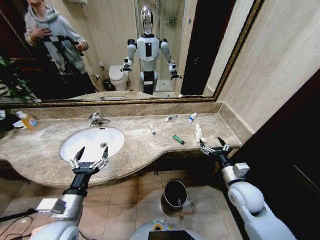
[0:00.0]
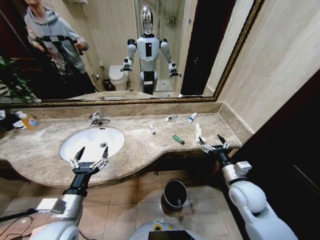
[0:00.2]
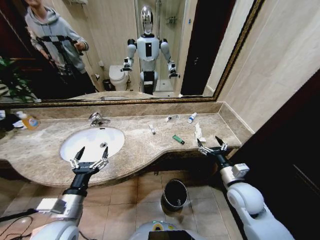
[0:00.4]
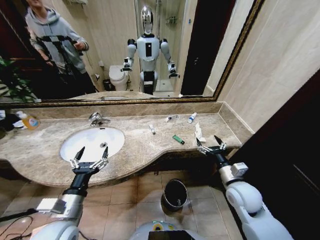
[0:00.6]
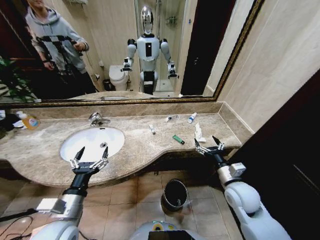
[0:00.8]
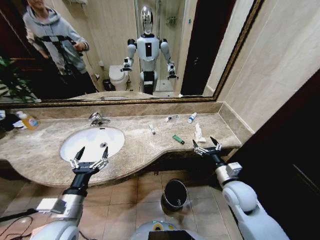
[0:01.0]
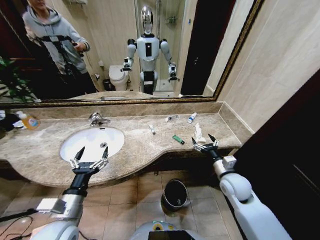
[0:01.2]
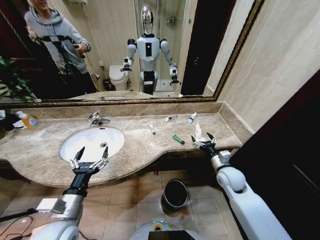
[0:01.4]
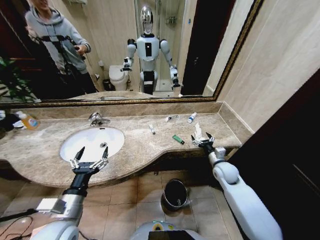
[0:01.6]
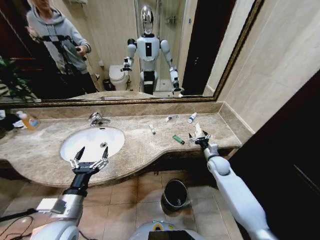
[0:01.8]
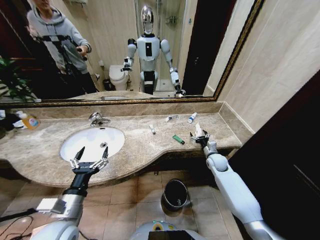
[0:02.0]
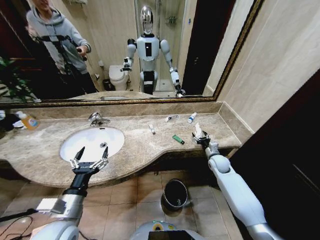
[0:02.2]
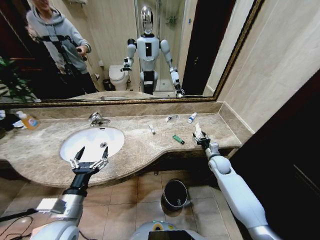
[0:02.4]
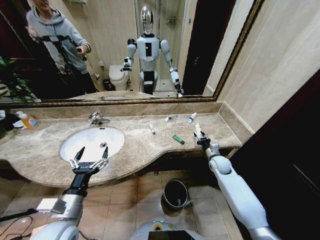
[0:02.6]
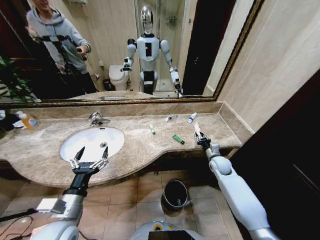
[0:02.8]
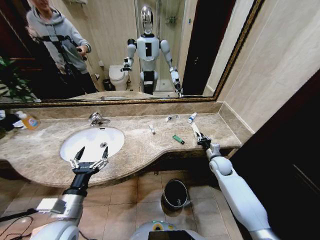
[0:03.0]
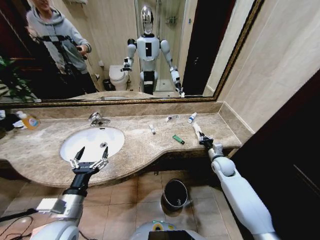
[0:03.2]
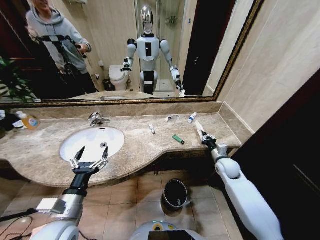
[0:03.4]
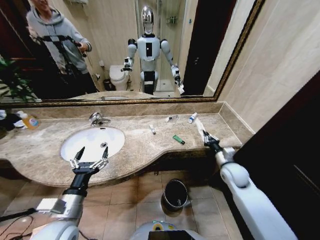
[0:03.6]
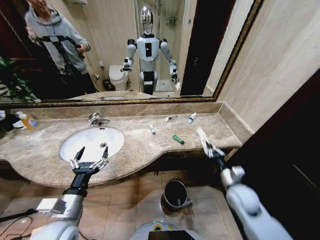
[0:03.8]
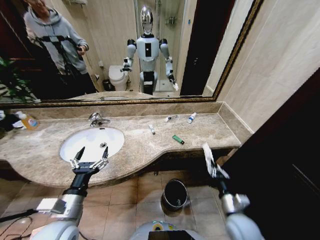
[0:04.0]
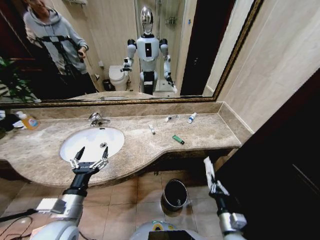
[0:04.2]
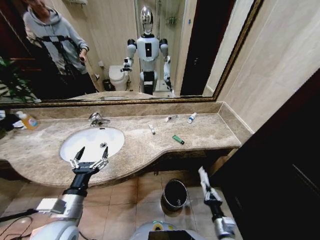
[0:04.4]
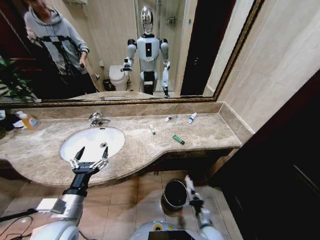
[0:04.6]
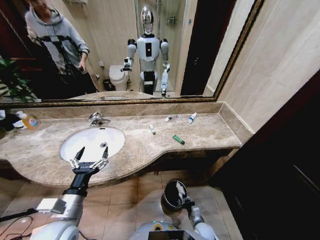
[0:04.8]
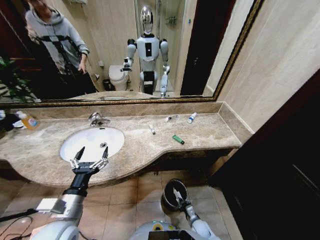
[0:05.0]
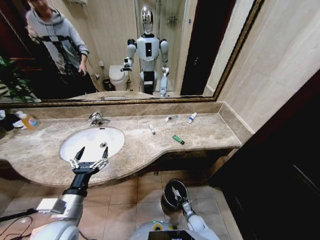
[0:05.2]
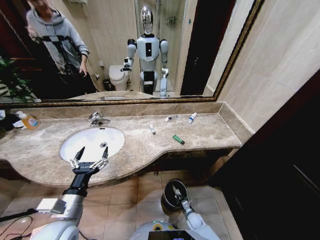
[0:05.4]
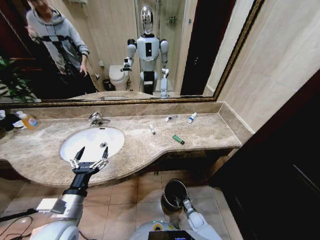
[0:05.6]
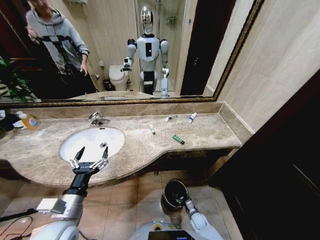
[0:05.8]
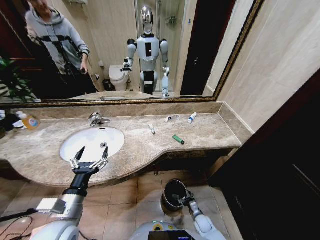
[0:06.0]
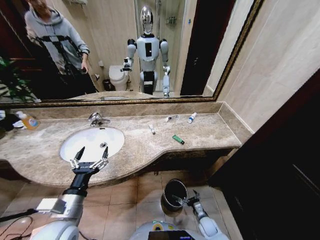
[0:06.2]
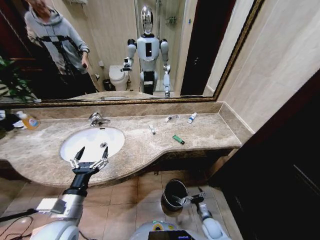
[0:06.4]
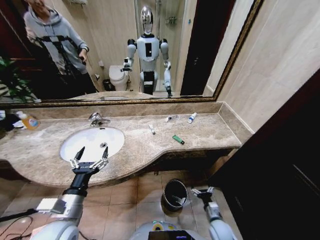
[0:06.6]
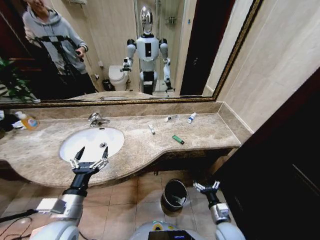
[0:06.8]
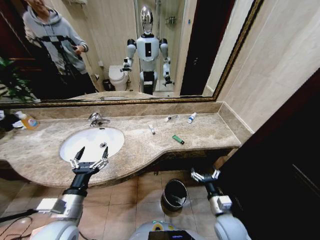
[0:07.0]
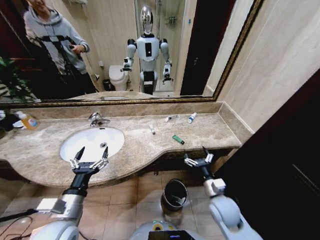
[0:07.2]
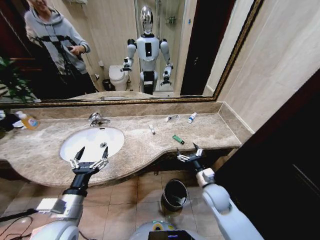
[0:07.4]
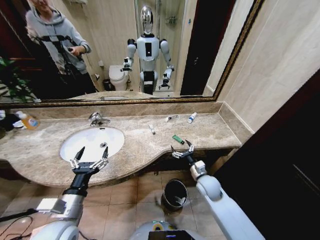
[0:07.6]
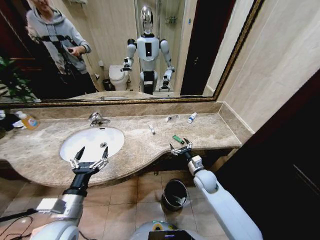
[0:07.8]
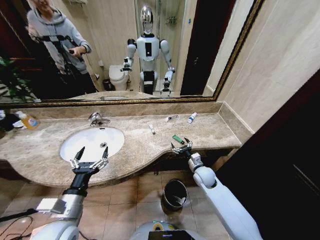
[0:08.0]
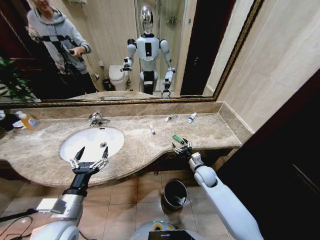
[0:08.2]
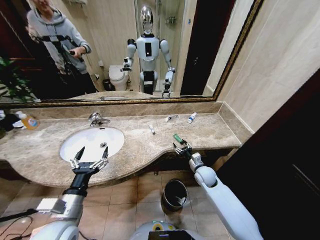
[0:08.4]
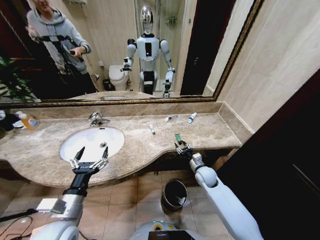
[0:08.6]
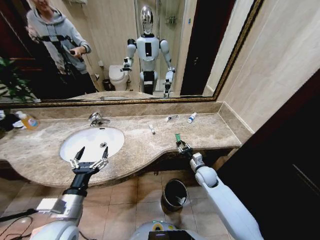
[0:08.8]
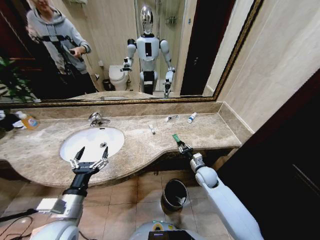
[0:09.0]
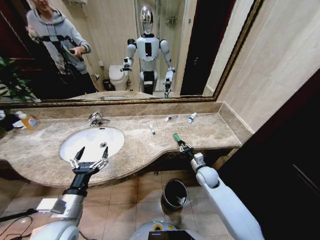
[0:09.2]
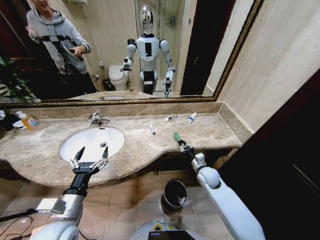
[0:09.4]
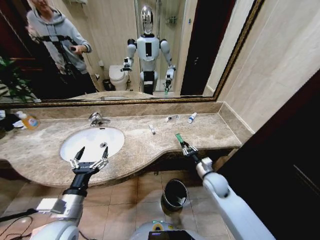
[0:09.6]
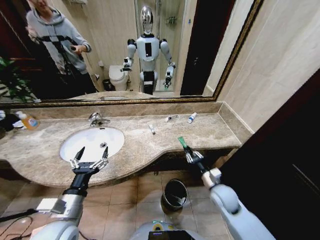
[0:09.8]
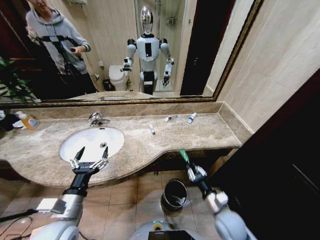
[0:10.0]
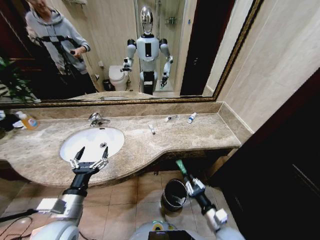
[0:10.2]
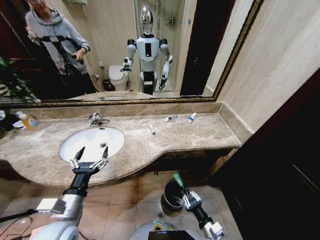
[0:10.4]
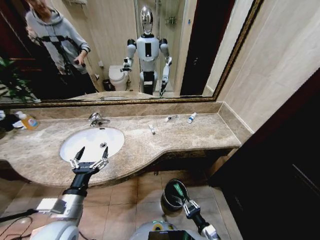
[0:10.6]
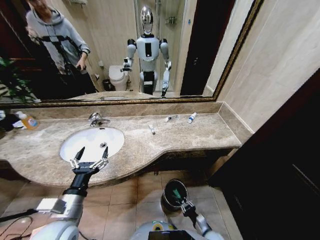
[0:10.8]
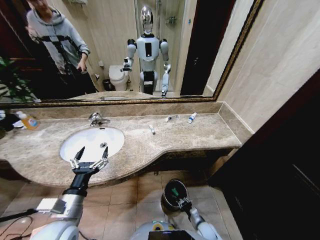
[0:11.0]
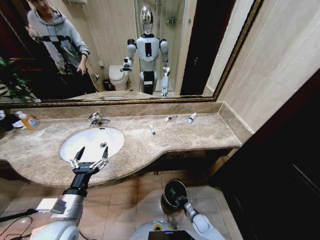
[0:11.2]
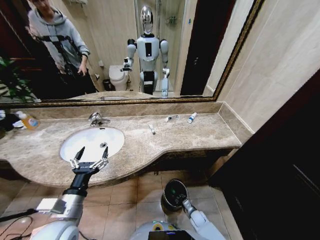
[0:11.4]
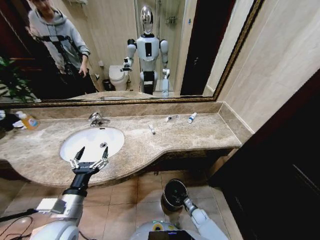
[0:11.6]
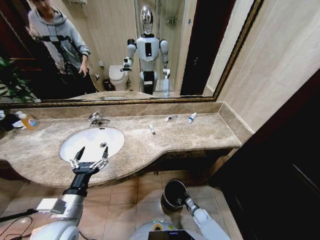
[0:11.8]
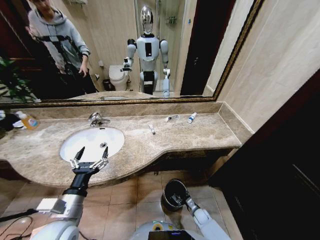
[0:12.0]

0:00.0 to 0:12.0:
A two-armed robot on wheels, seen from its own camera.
Task of the whole recording: Pick up the trash from the sink and place it in the trash bin.
0:01.6 to 0:03.0: The right gripper changes place by some 5 cm, and closes its fingers.
0:03.0 to 0:04.4: The right gripper shifts approximately 35 cm backward and downward.
0:04.4 to 0:06.0: The right gripper travels downward and forward by approximately 20 cm, and opens.
0:06.0 to 0:07.6: The right gripper heads upward, covering approximately 30 cm.
0:07.6 to 0:09.0: The right gripper goes some 5 cm forward, and closes its fingers.
0:09.0 to 0:10.4: The right gripper is displaced backward by some 25 cm.
0:10.4 to 0:12.0: The right gripper goes about 25 cm downward and forward, and opens up.

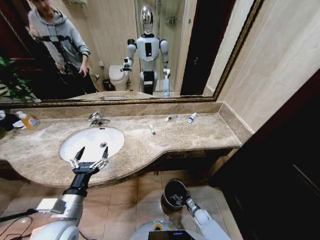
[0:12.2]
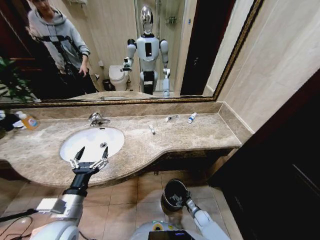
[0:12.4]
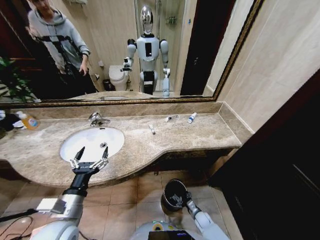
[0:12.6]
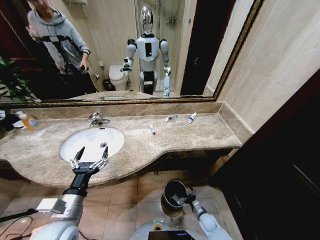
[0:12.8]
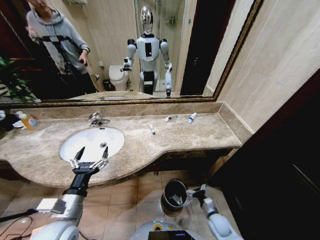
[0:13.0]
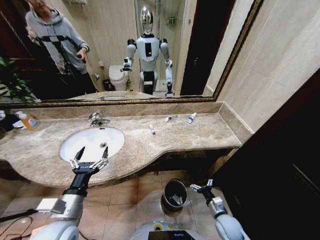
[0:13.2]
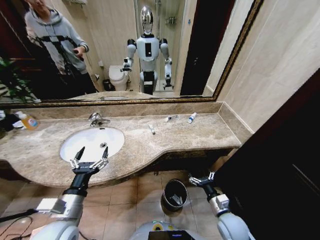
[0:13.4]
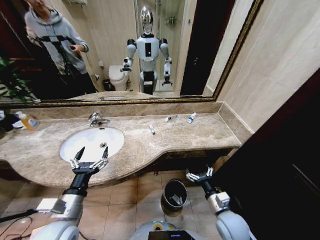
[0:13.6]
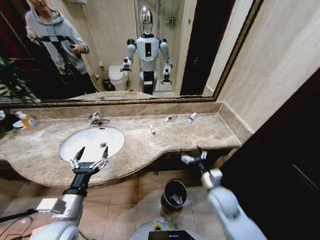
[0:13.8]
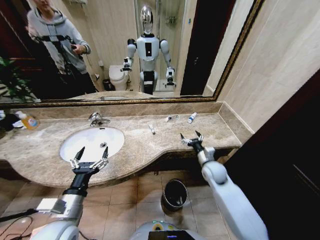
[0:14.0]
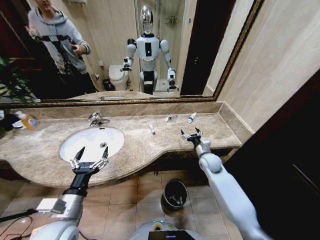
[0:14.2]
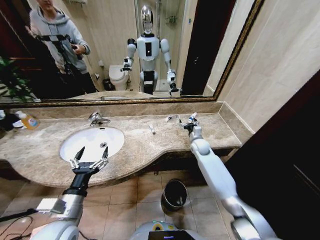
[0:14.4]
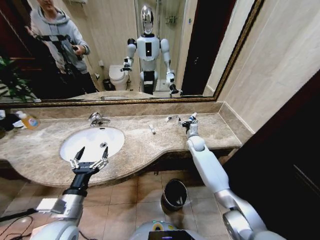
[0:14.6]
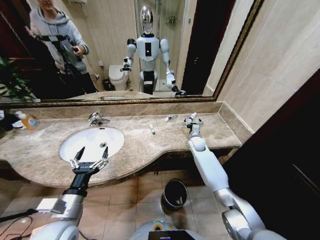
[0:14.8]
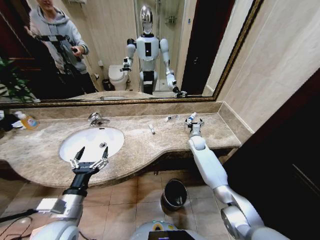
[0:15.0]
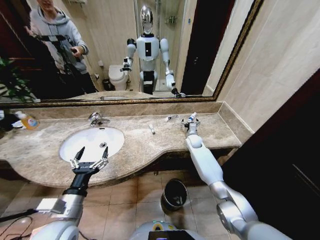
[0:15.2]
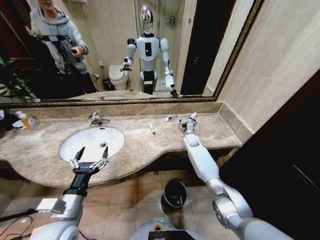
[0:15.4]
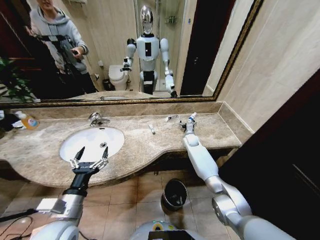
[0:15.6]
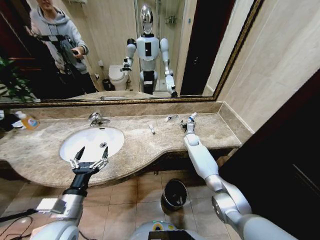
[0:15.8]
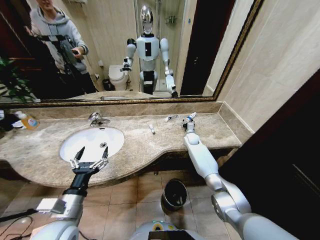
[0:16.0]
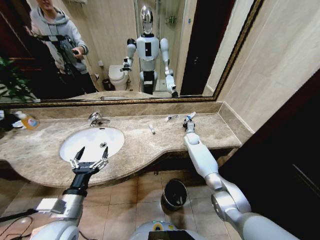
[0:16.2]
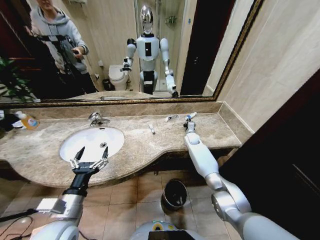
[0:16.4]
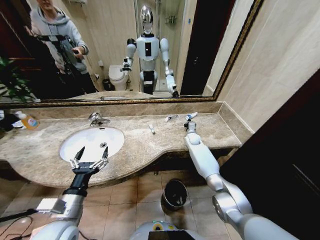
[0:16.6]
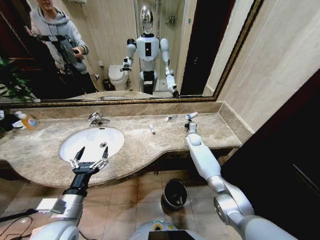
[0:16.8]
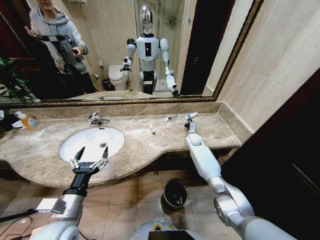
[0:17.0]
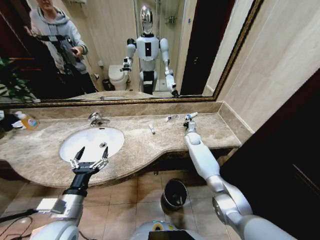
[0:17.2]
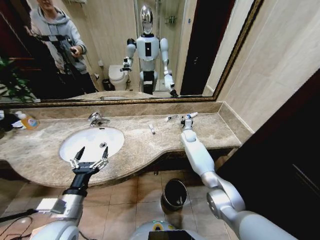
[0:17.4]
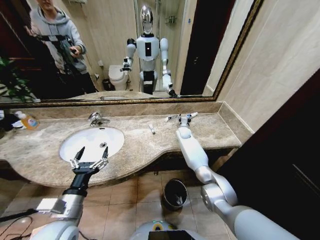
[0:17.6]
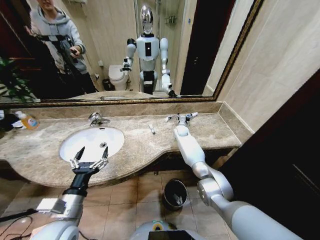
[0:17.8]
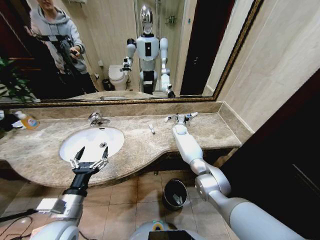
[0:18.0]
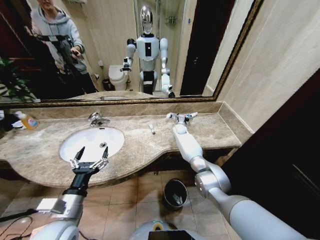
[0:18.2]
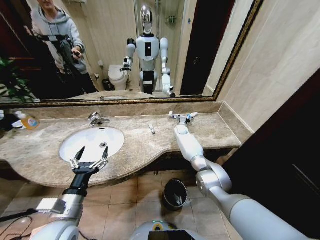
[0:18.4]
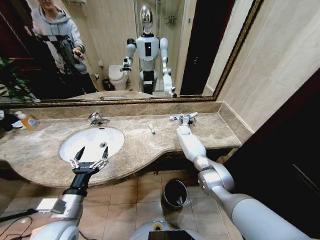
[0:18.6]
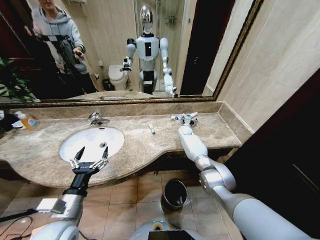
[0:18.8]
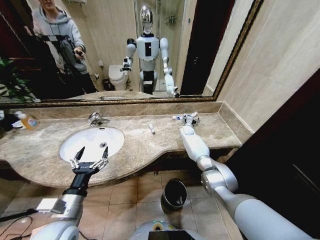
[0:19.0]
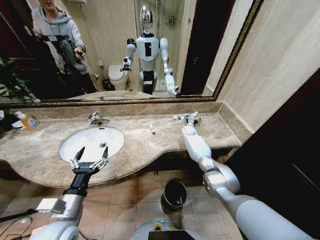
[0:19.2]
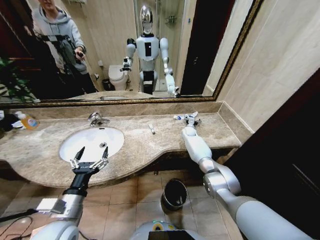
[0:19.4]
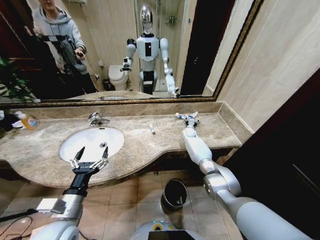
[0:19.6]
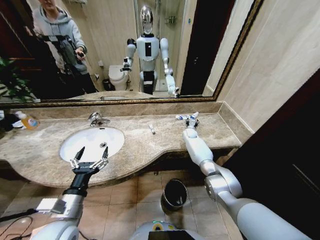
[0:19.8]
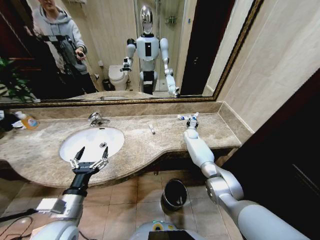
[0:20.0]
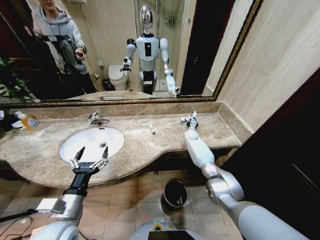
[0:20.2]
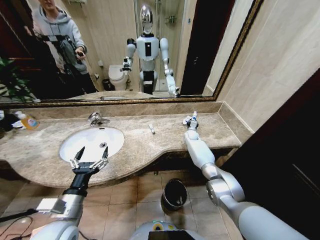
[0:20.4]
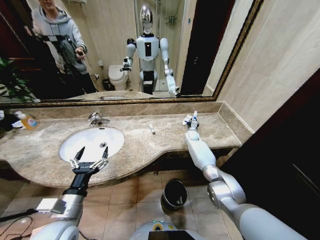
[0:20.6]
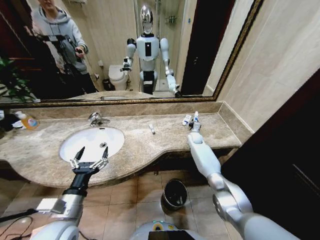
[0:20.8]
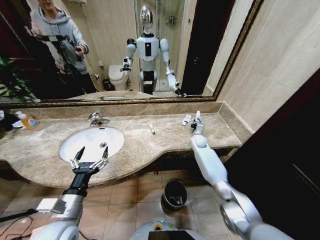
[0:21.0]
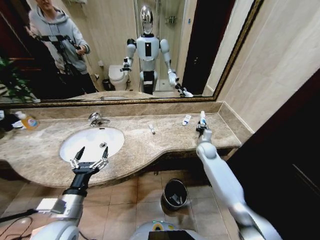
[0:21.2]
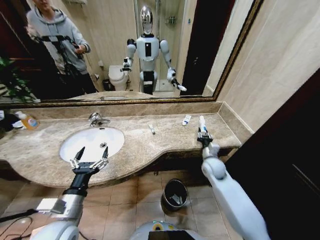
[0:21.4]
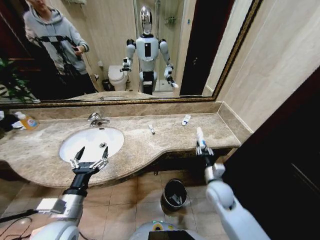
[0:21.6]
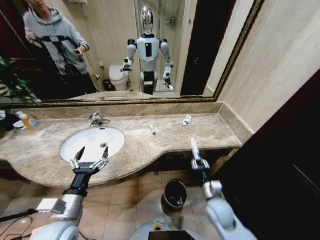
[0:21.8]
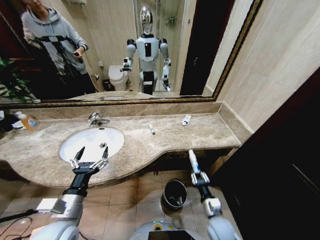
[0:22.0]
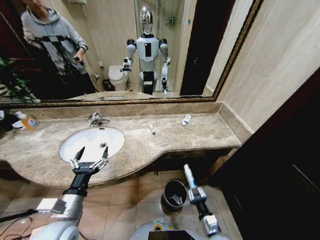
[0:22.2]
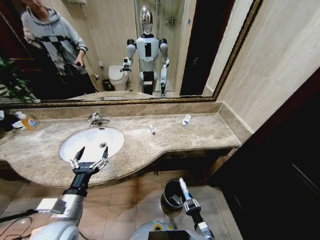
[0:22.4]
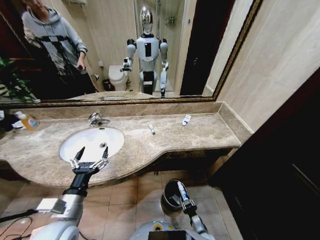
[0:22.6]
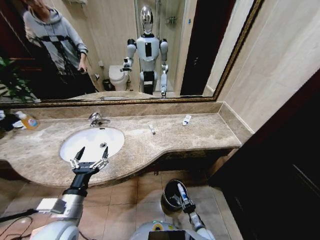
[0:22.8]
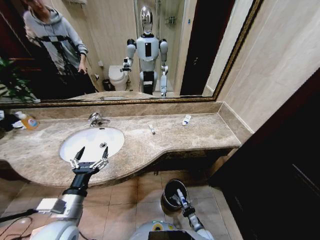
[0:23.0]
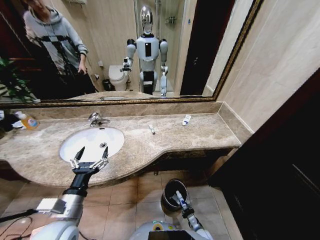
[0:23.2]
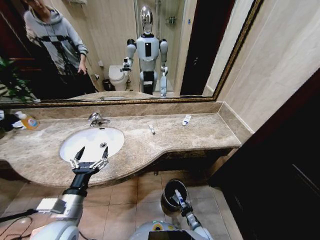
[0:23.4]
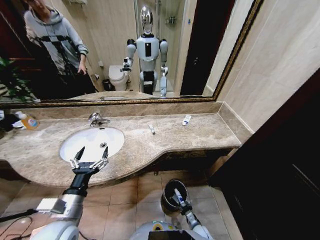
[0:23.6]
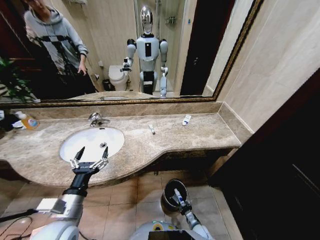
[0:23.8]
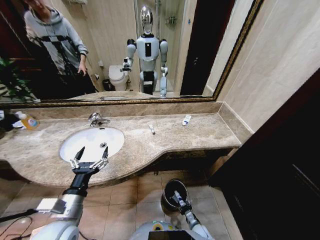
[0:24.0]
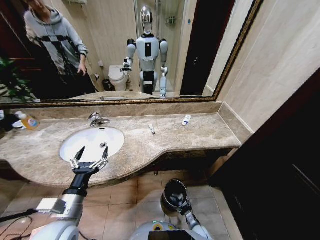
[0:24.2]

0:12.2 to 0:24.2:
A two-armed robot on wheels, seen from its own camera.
Task of the whole recording: Pick up the trash from the sink and place it in the trash bin.
0:12.2 to 0:13.8: The right gripper shifts approximately 35 cm upward.
0:13.8 to 0:15.2: The right gripper moves forward, approximately 30 cm.
0:15.2 to 0:16.6: The right gripper closes.
0:16.6 to 0:18.2: The right gripper travels to the left and forward by some 10 cm, and opens its fingers.
0:18.2 to 0:19.8: The right gripper heads to the right, covering some 10 cm.
0:19.8 to 0:21.2: The right gripper goes approximately 15 cm backward, and closes its fingers.
0:21.2 to 0:22.6: The right gripper is displaced backward and downward by roughly 40 cm.
0:22.6 to 0:24.2: The right gripper heads downward, covering roughly 10 cm.
